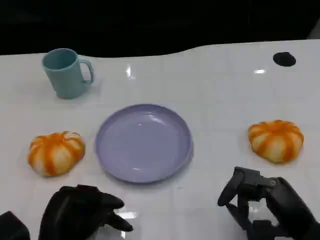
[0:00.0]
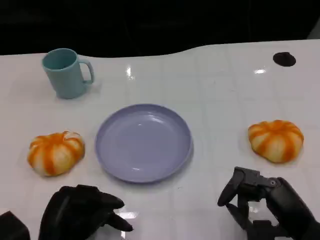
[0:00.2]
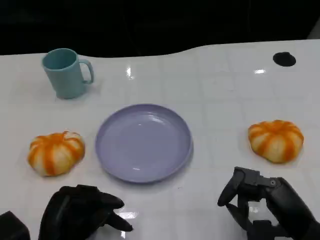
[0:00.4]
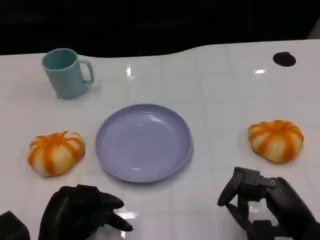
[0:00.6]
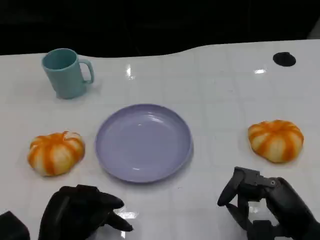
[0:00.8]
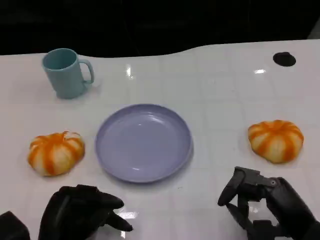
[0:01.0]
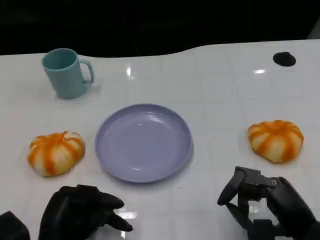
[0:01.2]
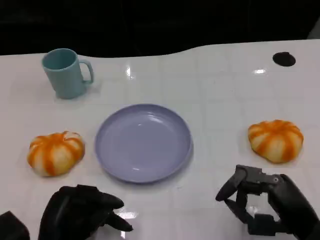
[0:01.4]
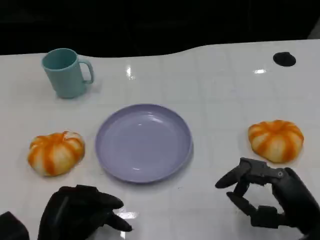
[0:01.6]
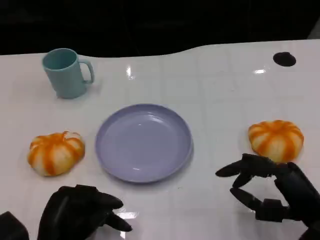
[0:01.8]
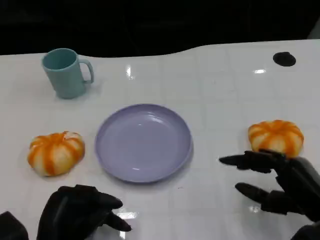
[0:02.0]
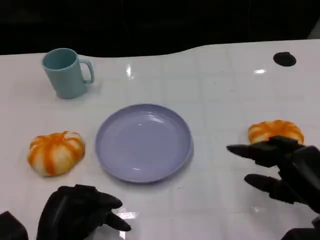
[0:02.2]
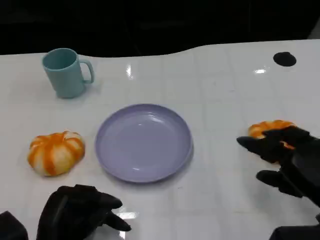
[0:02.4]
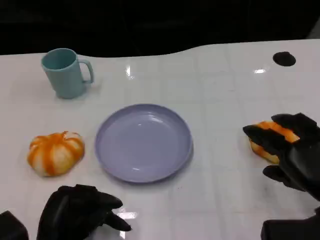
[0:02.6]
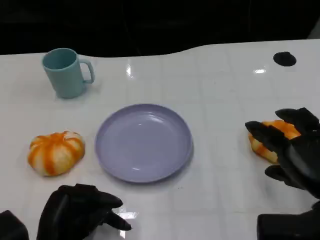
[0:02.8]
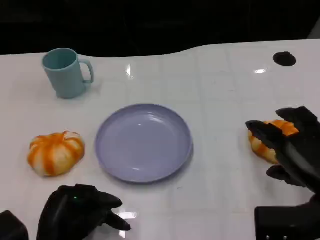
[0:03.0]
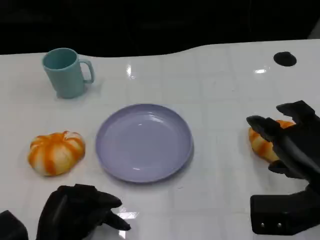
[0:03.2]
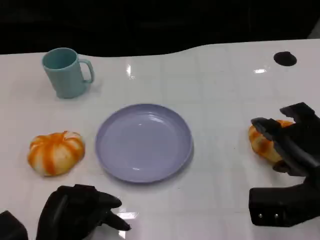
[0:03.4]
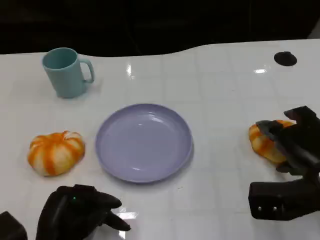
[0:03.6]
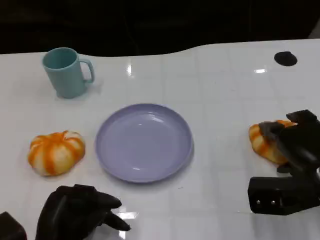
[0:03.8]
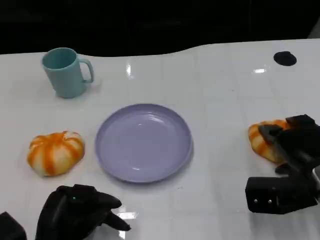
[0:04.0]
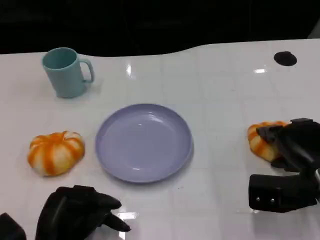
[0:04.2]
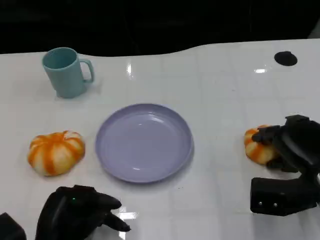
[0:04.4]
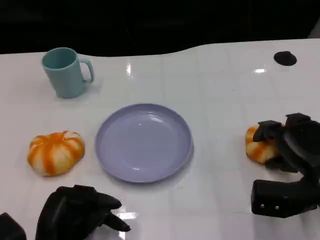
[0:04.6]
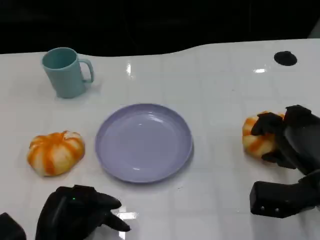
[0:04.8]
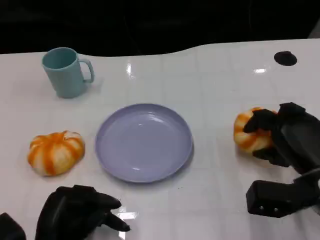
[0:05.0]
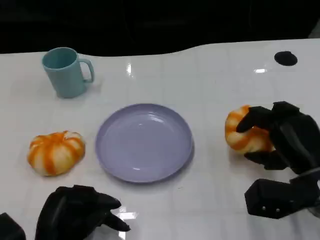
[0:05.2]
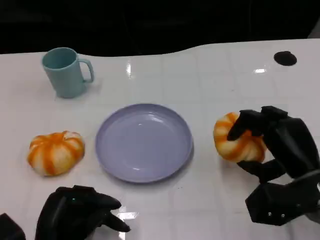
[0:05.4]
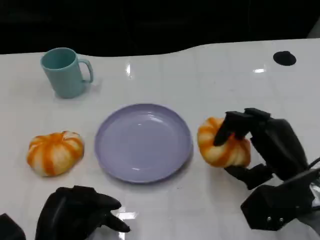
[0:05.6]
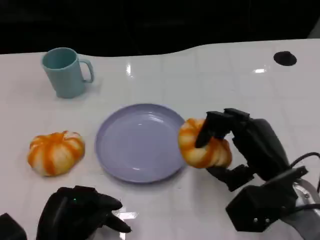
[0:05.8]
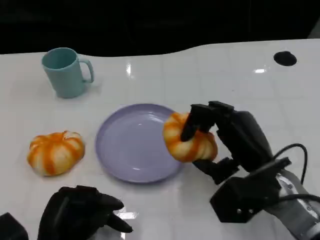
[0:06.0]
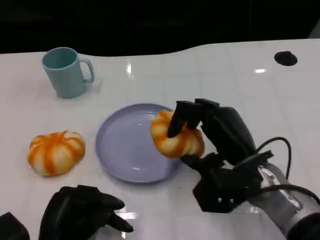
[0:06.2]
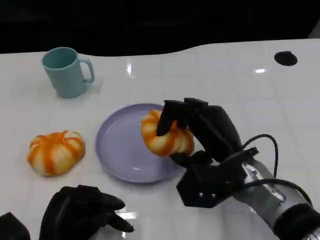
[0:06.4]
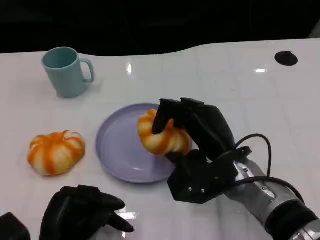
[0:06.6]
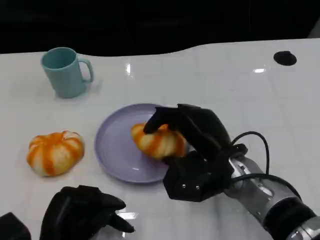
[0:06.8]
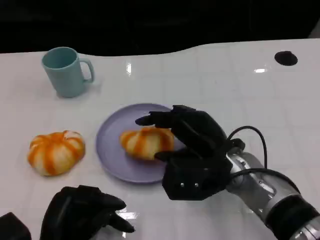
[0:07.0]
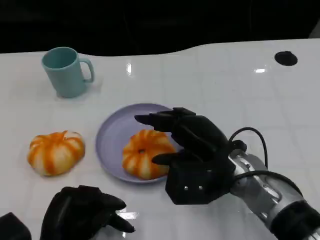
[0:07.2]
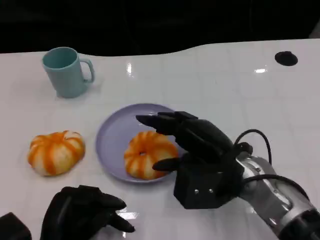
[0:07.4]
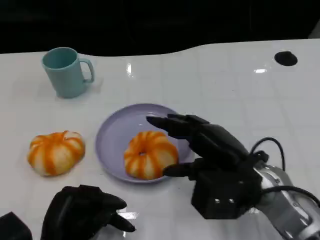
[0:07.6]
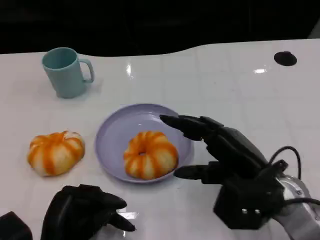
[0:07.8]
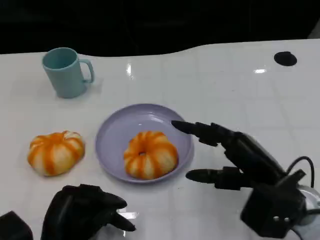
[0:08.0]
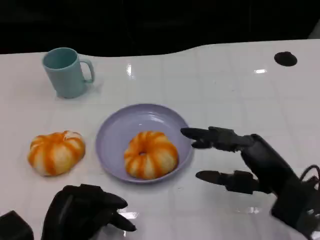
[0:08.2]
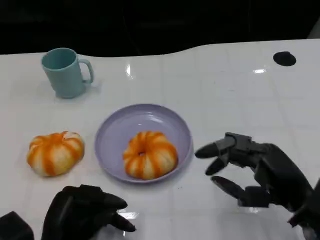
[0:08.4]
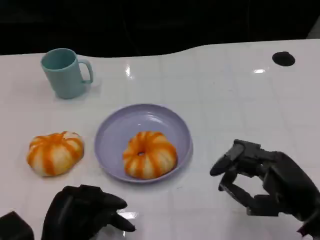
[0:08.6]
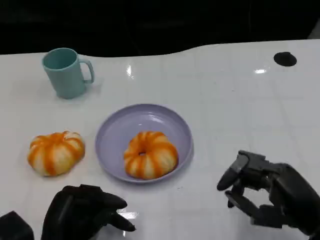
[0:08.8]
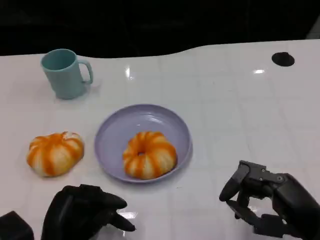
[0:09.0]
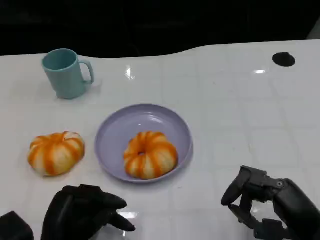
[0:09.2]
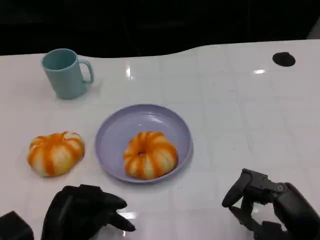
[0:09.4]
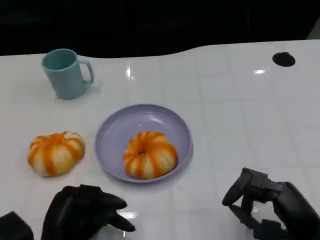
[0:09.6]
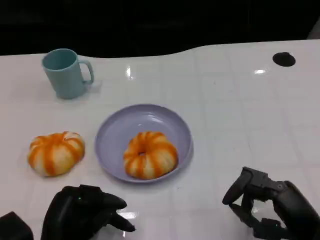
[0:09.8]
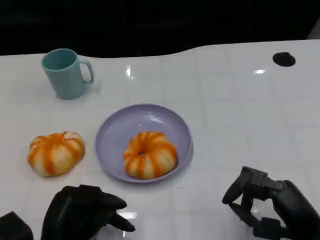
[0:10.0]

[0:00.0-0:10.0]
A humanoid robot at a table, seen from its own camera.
Task of the whole recording: Grasp the bread from the table and place it into the plate.
0:00.0 to 0:01.4: The two hands keep their place.
0:01.4 to 0:02.8: The right hand changes place by approximately 5 cm.
0:02.8 to 0:04.2: The right hand moves forward, about 5 cm.
0:04.2 to 0:05.8: The right hand moves to the left, roughly 5 cm.
0:05.8 to 0:07.2: The right hand goes roughly 5 cm to the left.
0:07.2 to 0:08.6: The right hand goes about 15 cm to the right and backward.
0:08.6 to 0:10.0: The hands stay close to where they were, moving slightly.

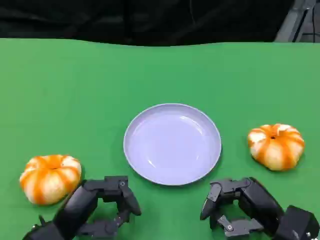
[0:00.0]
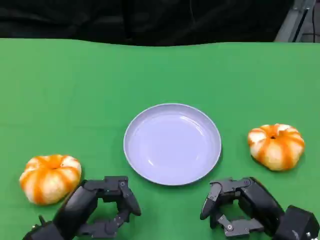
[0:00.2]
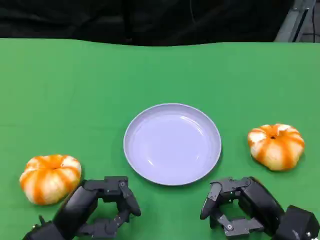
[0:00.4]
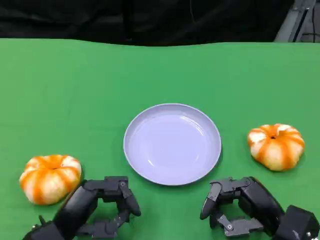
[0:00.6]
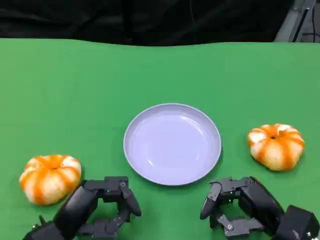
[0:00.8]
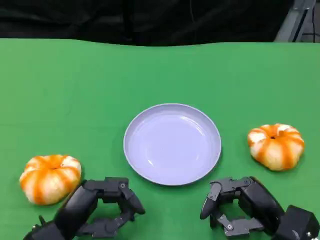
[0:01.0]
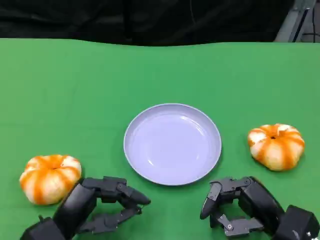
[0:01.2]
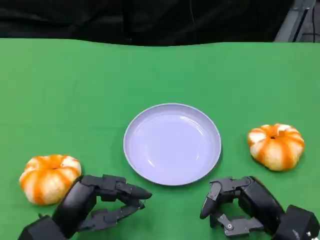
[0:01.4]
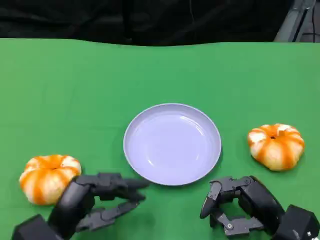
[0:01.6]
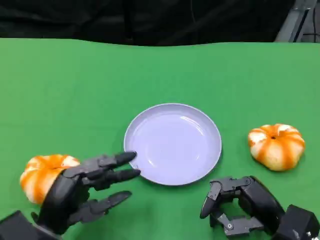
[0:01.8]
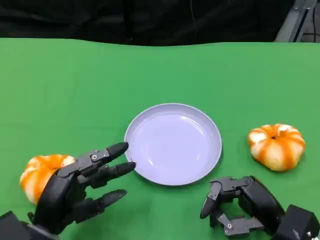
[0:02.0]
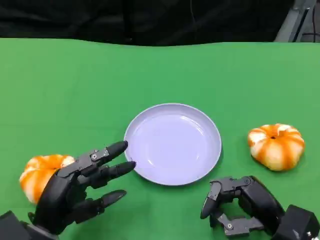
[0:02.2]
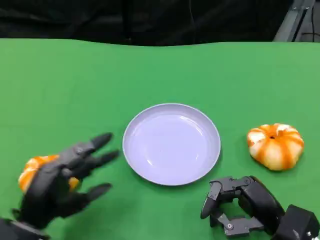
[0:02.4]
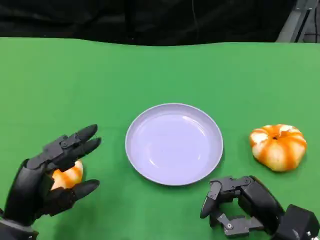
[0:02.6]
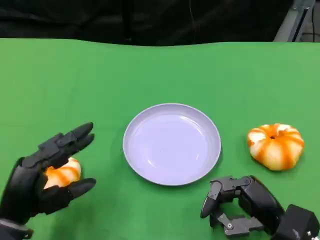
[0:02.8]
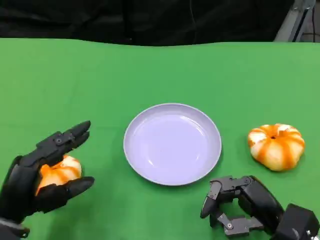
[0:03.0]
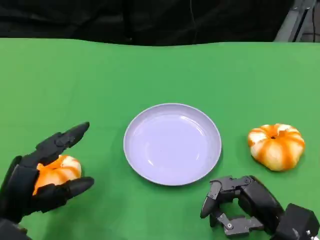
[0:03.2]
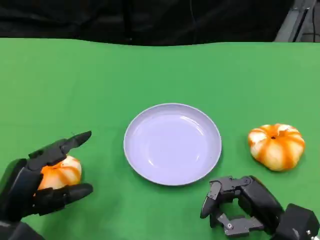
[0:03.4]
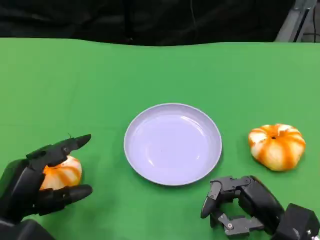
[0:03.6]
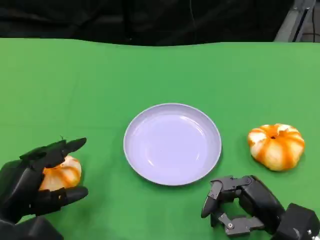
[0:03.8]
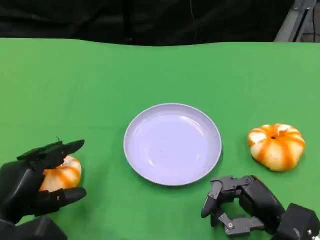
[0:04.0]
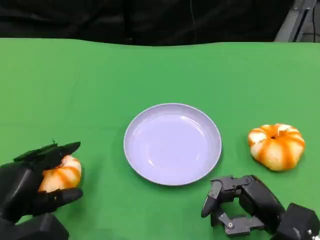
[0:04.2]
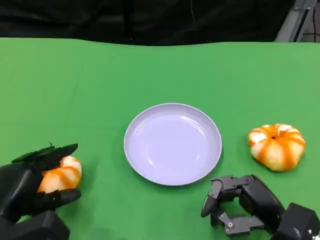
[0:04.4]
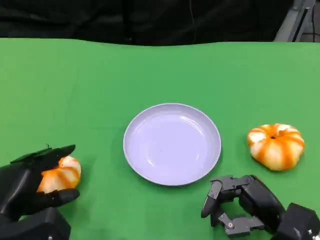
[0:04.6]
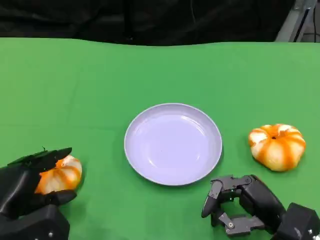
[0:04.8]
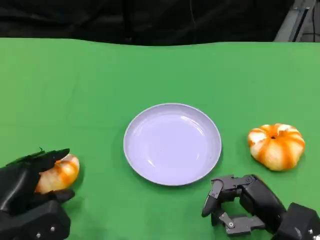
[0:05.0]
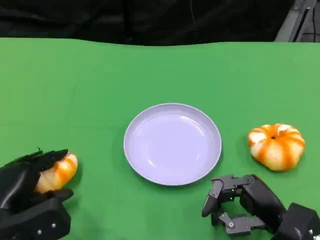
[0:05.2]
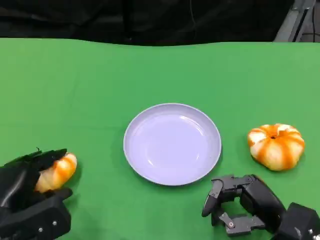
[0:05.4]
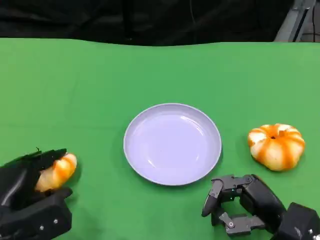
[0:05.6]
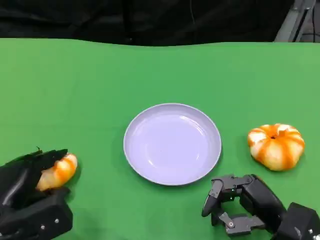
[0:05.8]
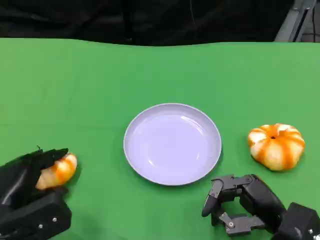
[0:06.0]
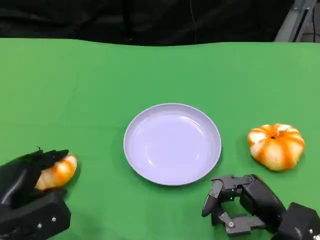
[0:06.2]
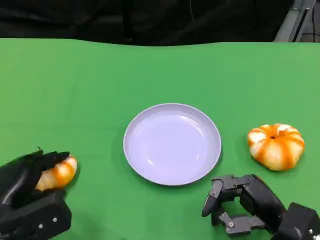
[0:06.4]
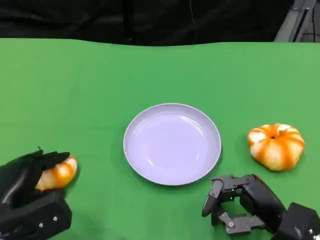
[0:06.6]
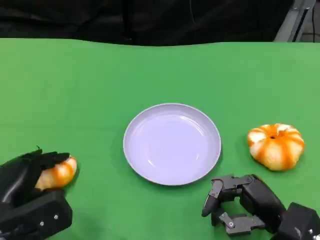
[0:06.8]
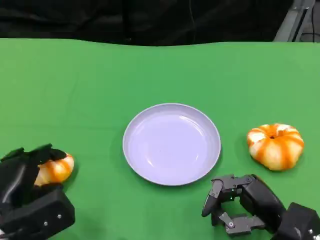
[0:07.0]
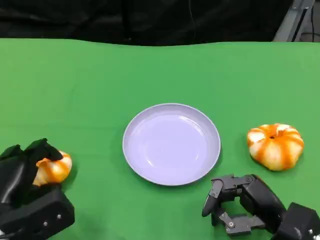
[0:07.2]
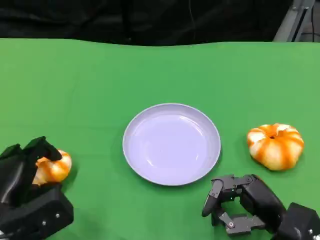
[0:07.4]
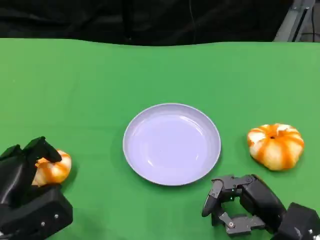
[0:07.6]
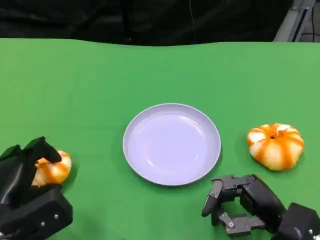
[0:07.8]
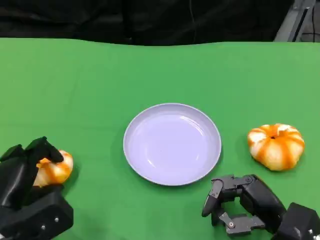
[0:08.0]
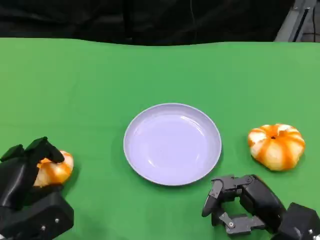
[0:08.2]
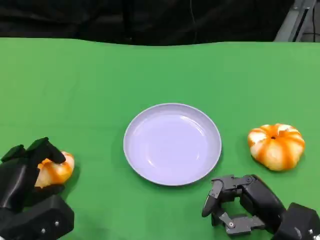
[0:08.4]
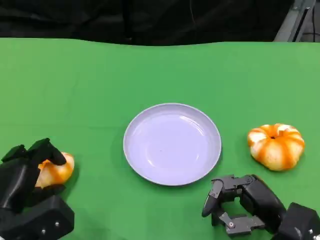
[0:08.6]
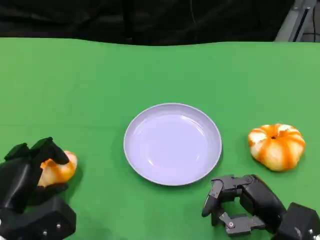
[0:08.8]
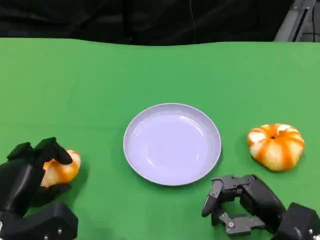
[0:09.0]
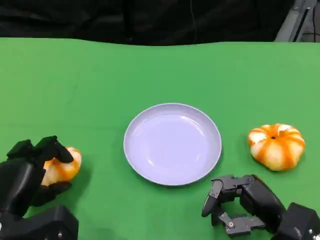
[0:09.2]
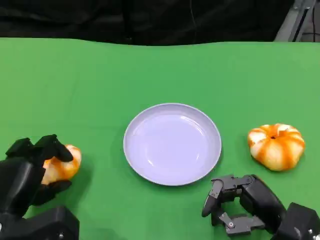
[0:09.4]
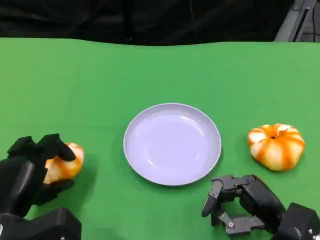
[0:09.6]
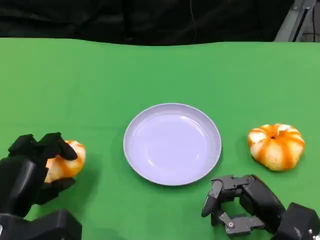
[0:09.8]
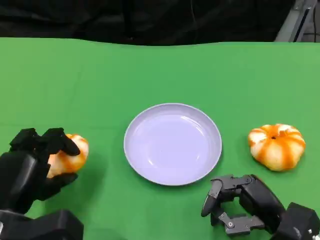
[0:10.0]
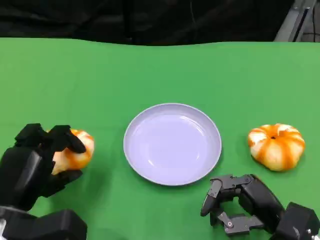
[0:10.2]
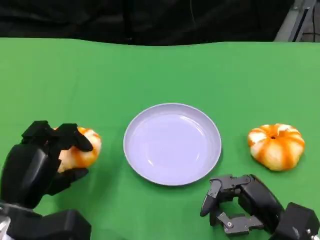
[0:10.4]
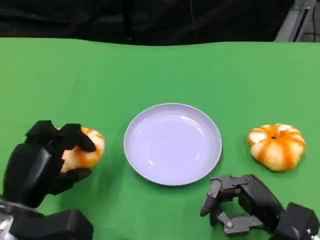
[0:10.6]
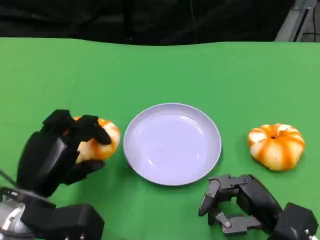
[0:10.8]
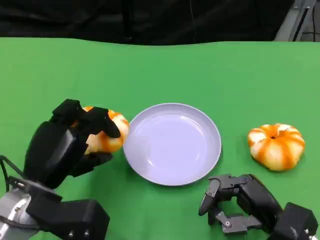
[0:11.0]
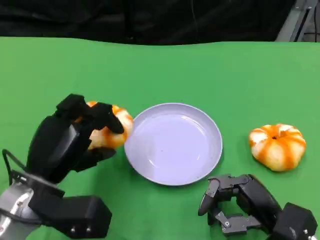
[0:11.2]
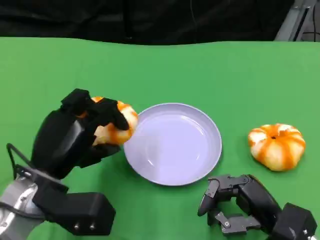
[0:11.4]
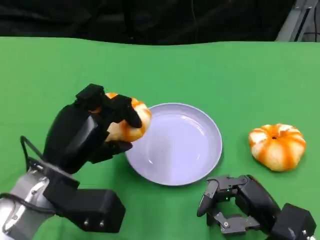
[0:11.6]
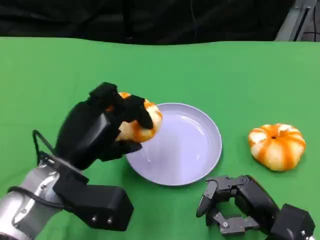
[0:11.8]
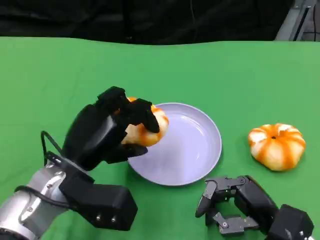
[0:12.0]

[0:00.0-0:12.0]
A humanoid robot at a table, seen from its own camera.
Task of the whole recording: Grasp the bread from the table and place it into the plate.
0:00.0 to 0:01.6: The hands move only a little.
0:01.6 to 0:03.0: The left hand goes approximately 5 cm to the left.
0:04.4 to 0:10.4: The hands move only a little.
0:10.4 to 0:12.0: The left hand moves to the right, some 5 cm.
